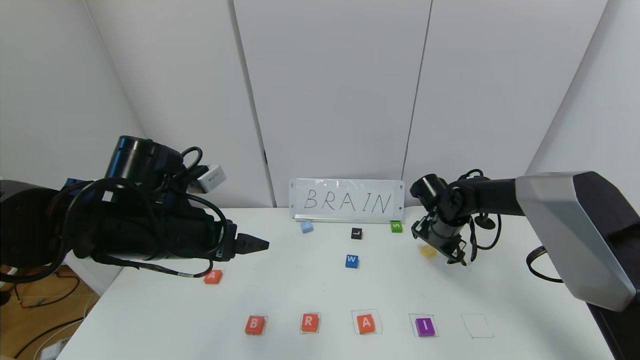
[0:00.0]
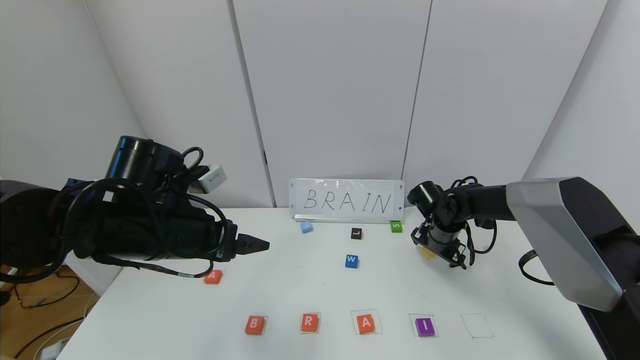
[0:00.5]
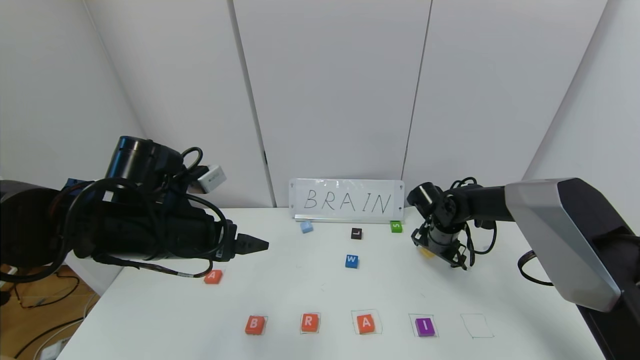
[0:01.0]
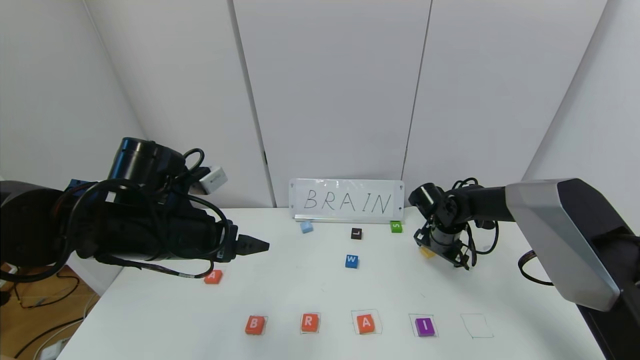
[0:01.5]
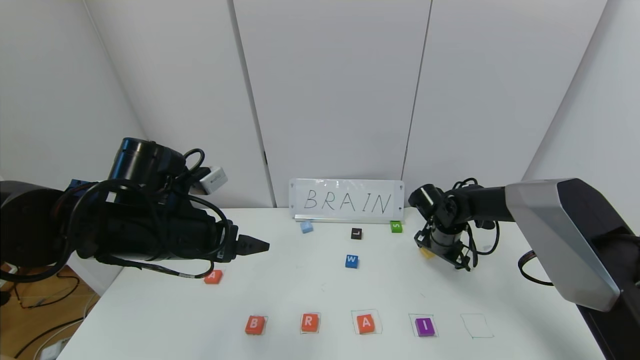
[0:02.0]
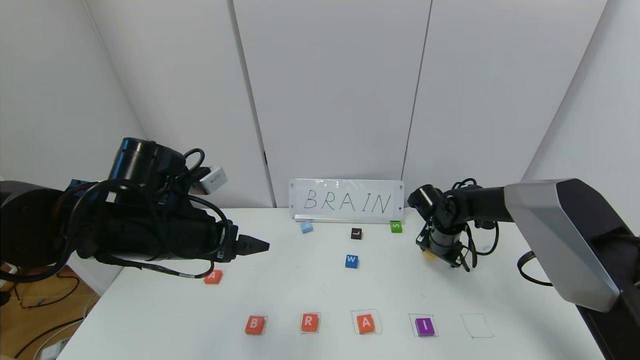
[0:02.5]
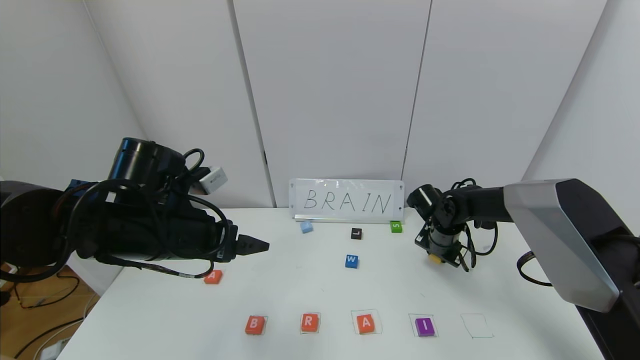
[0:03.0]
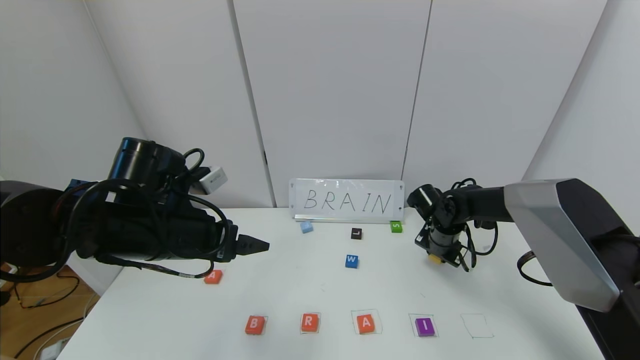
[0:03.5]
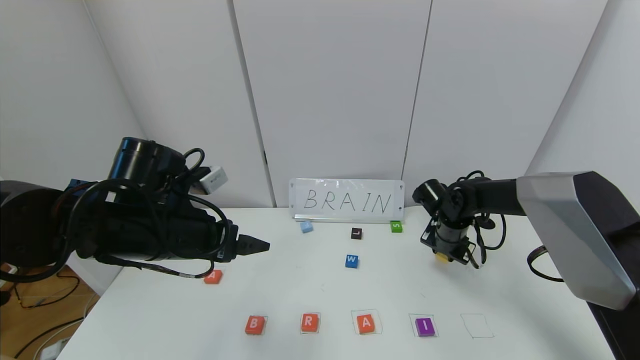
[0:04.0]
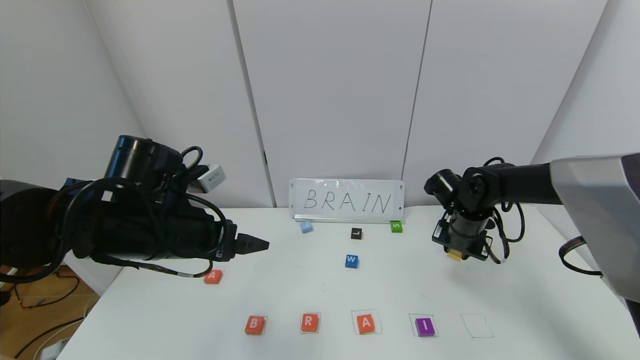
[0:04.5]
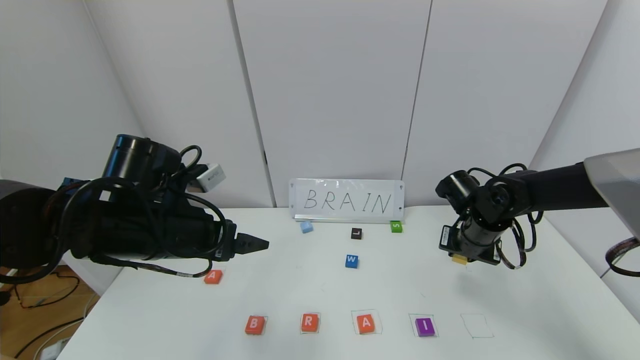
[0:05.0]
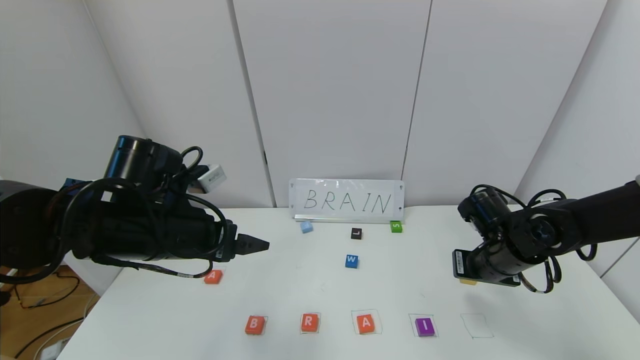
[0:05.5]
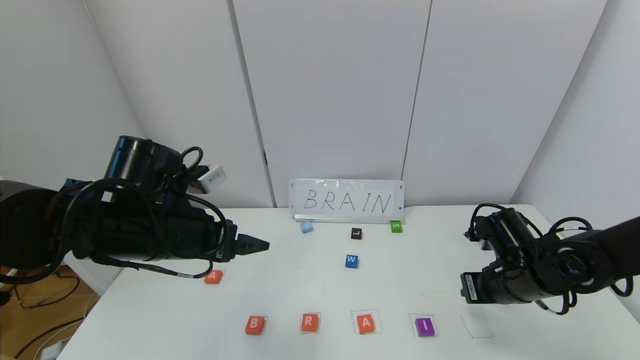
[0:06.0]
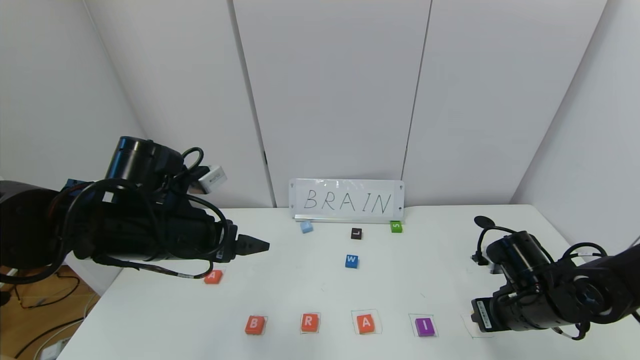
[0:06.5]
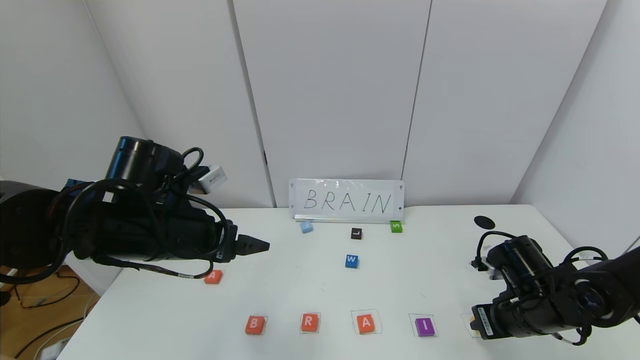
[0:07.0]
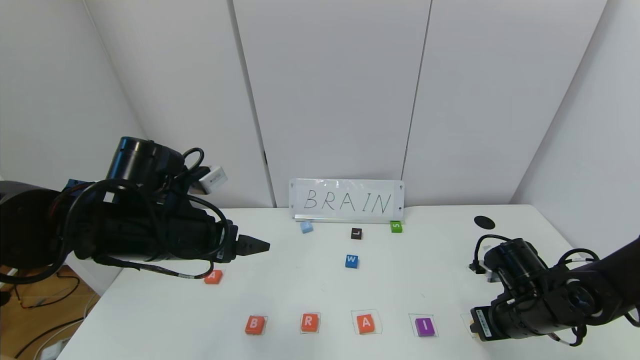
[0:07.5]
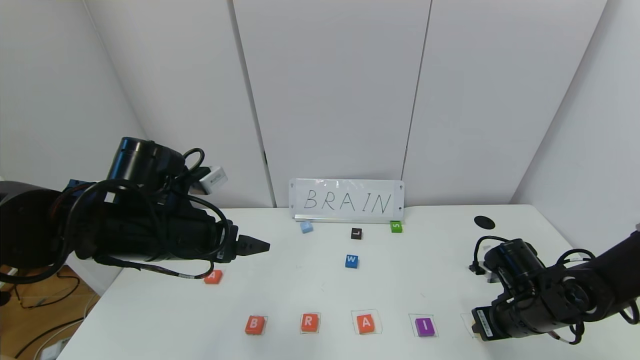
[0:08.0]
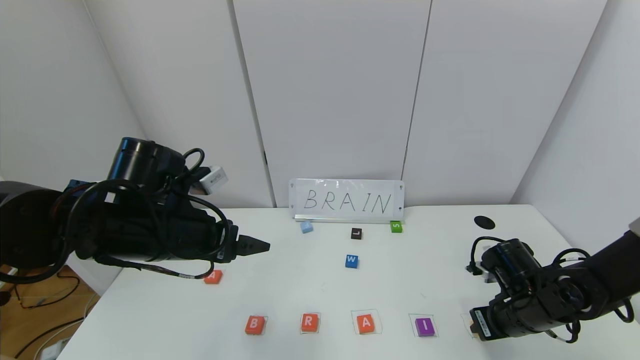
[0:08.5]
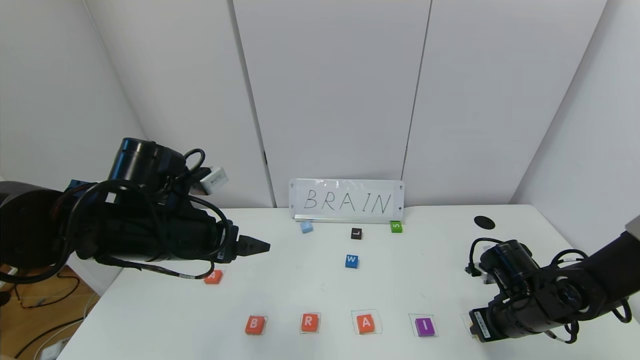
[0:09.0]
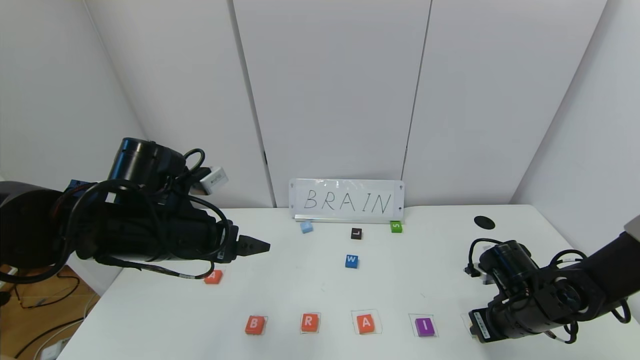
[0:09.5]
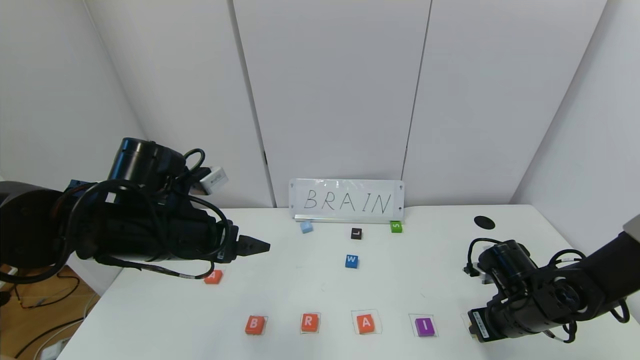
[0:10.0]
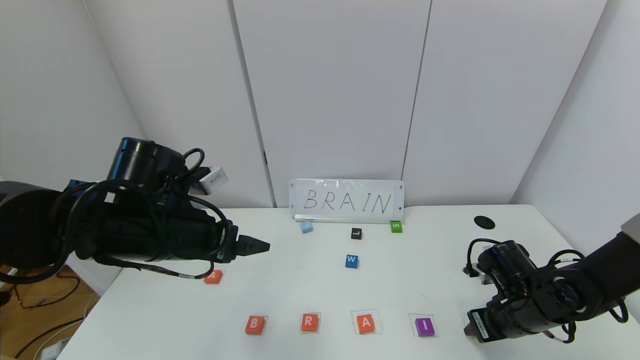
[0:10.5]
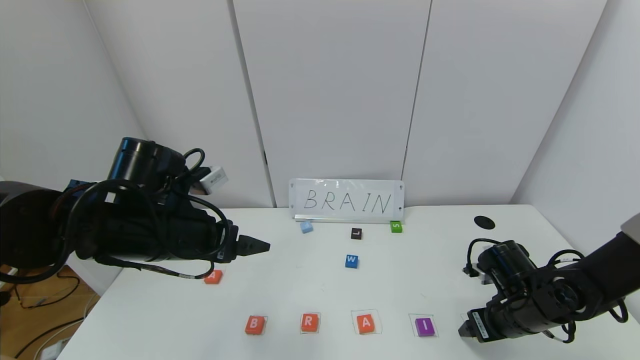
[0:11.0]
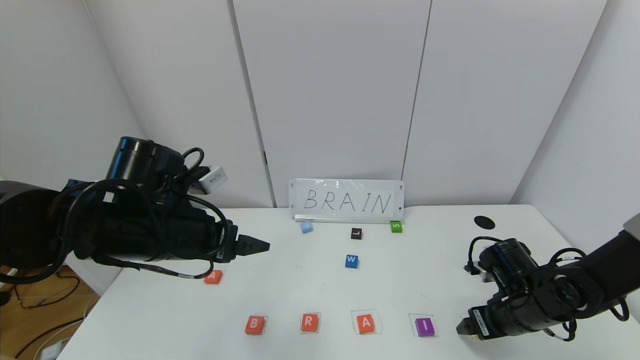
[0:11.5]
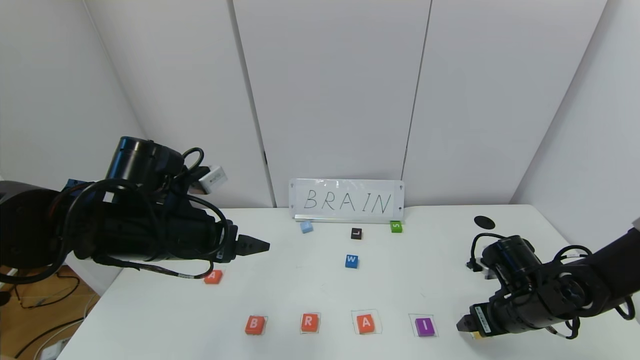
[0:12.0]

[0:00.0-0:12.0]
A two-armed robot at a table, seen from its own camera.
Task of the whole recording: use the gripper to find blocks with the letters b, a, a, and i on the table and arrange them into BAAI, then find r and N and turn the arranged baai into brian.
0:00.0 to 0:02.0: The grippers make only small movements.
0:02.0 to 0:04.0: The right gripper closes.
0:04.0 to 0:06.0: The right gripper is displaced backward by some 15 cm.
0:06.0 to 0:08.0: The right gripper shifts by about 5 cm.
0:08.0 to 0:10.0: Neither gripper changes place.
0:10.0 to 0:12.0: The right gripper opens its fingers.

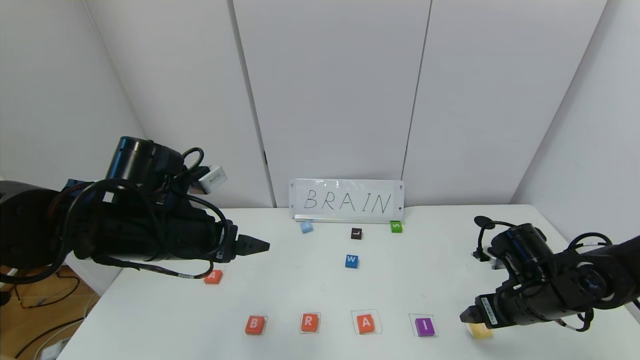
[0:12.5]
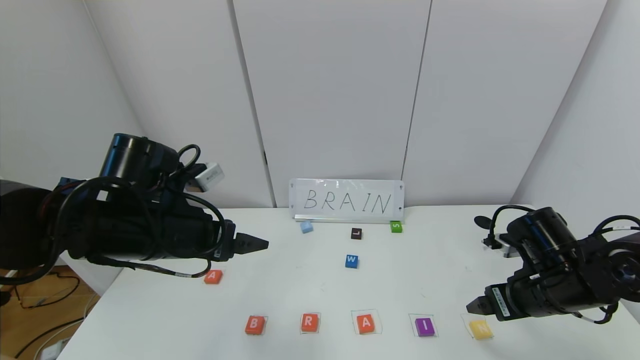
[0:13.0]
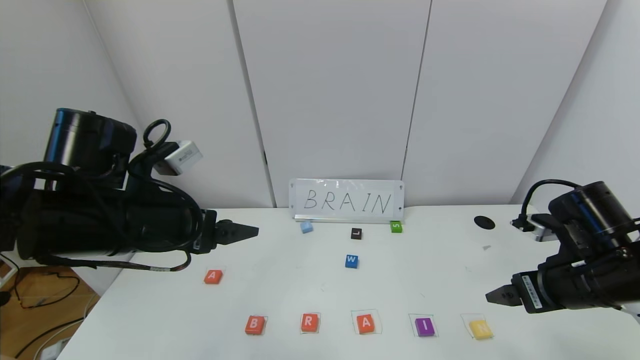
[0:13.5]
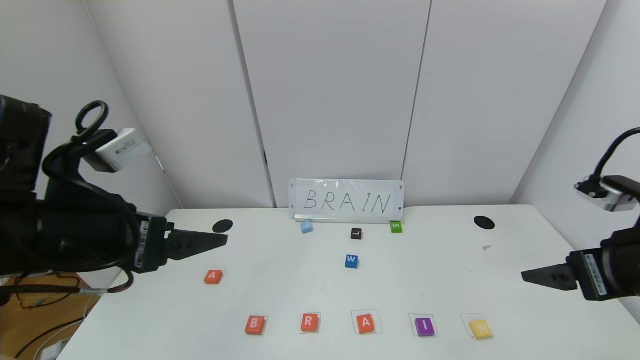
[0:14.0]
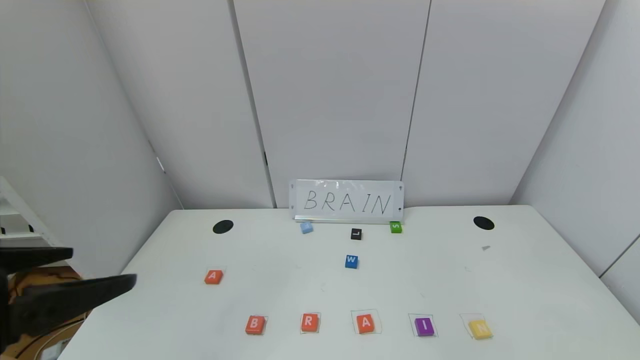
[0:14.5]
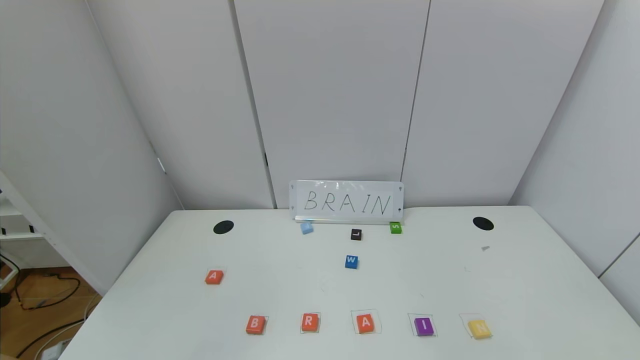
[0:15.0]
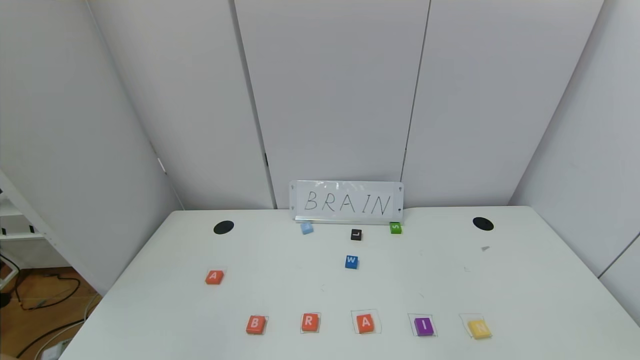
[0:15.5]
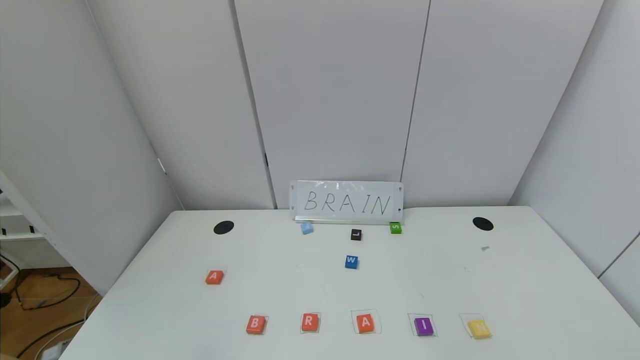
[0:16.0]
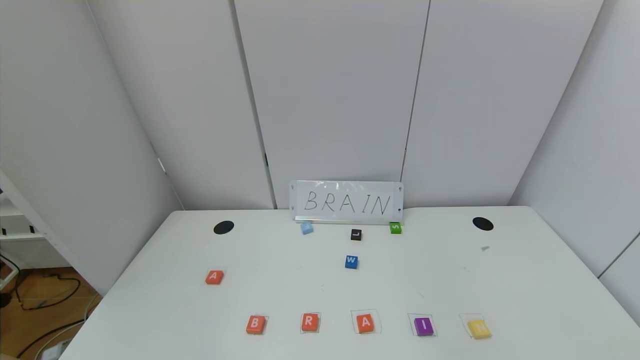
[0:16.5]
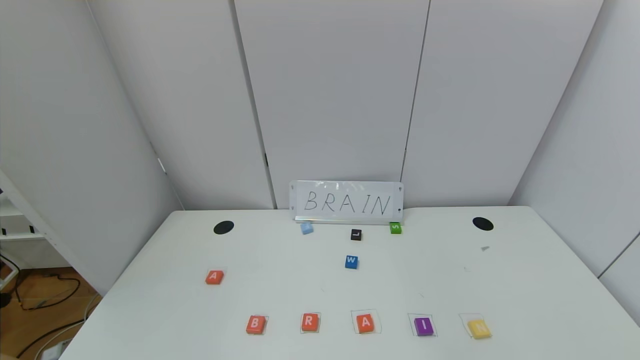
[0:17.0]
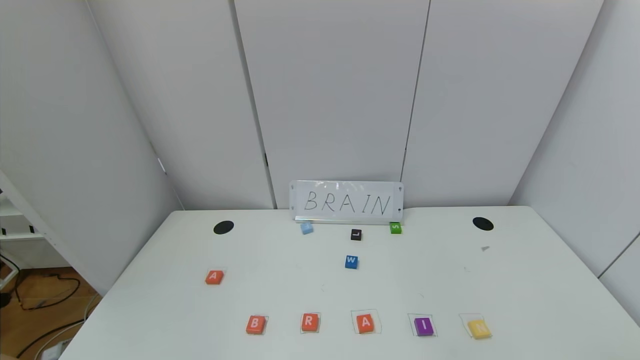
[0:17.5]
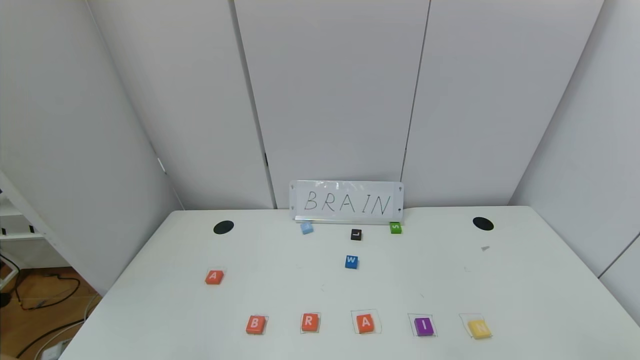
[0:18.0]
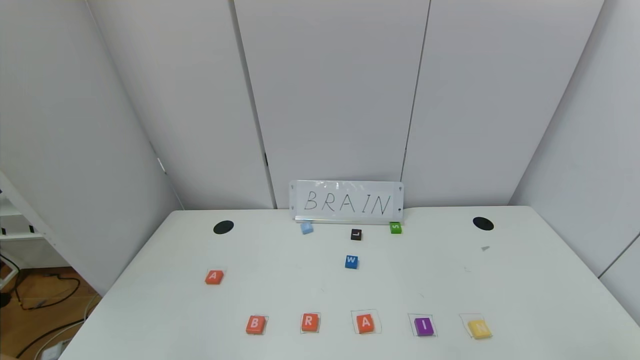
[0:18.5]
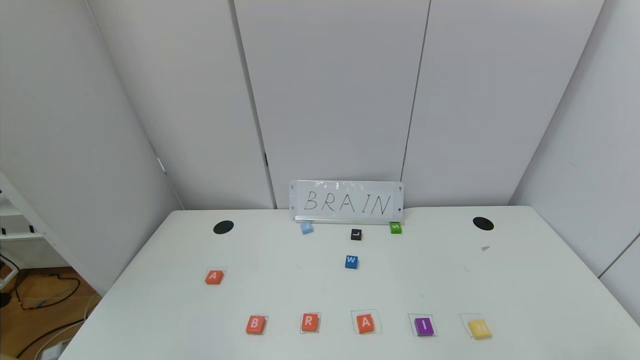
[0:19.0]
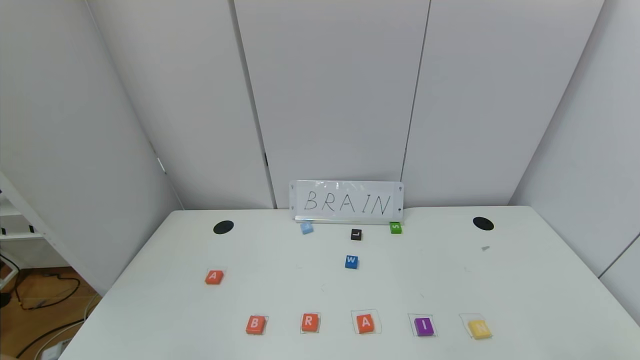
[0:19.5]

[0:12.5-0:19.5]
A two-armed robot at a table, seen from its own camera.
Task of the whole recording: use the gripper to find blocks with the letters b, a, a, and i on the table and arrange them into BAAI, then find r and N and turn the arranged baai into brian.
0:12.5 to 0:14.5: The left gripper moves backward and upward, approximately 20 cm. Meanwhile the right gripper travels upward and backward by approximately 30 cm.
0:14.5 to 0:16.0: The left gripper shifts some 20 cm backward and downward.
